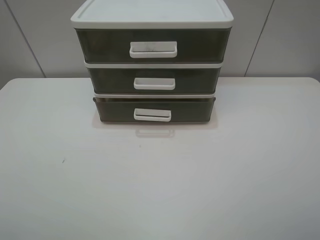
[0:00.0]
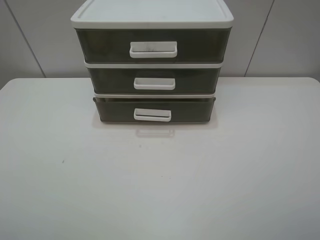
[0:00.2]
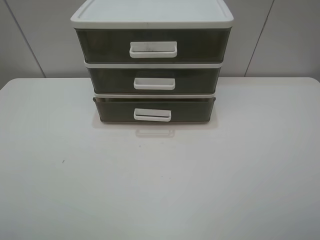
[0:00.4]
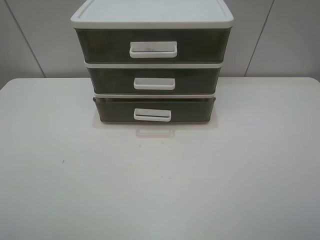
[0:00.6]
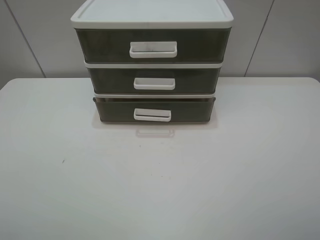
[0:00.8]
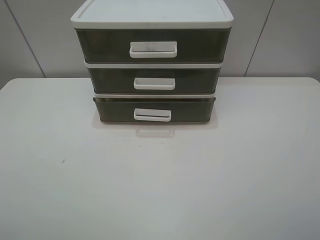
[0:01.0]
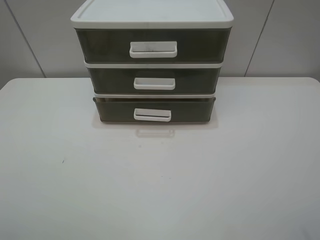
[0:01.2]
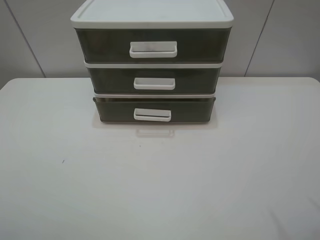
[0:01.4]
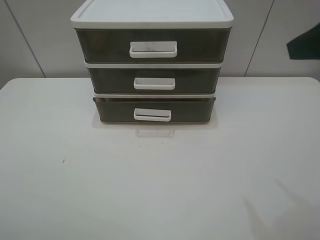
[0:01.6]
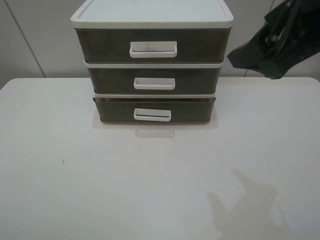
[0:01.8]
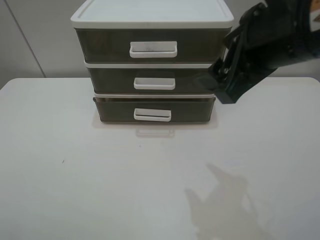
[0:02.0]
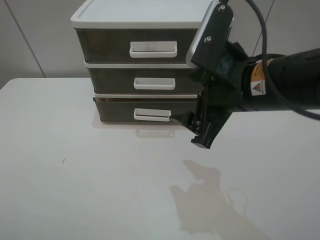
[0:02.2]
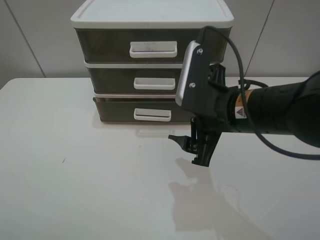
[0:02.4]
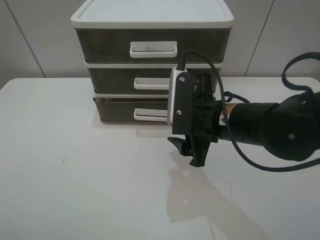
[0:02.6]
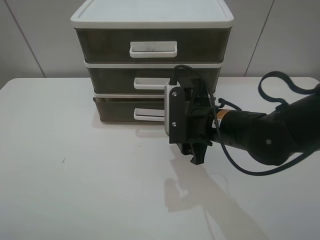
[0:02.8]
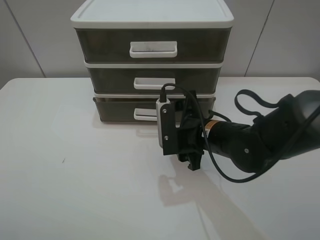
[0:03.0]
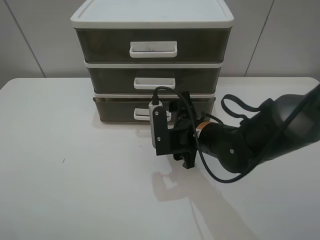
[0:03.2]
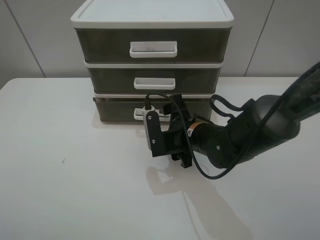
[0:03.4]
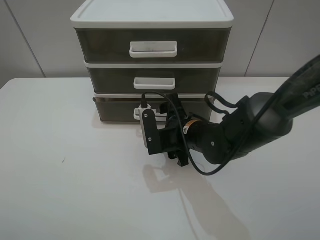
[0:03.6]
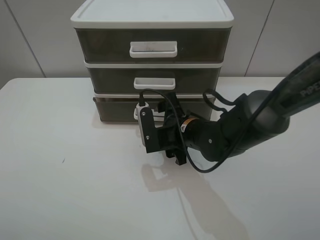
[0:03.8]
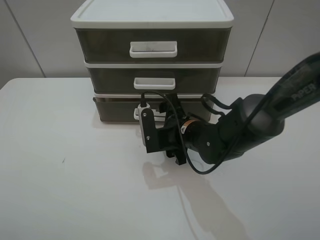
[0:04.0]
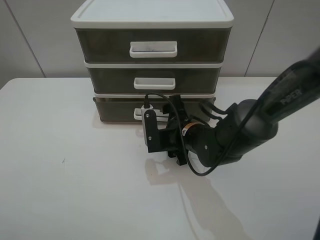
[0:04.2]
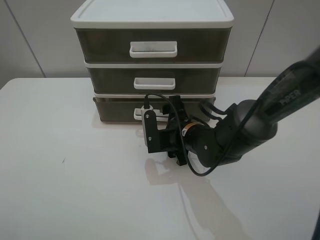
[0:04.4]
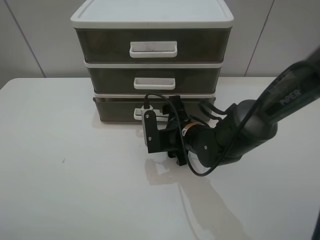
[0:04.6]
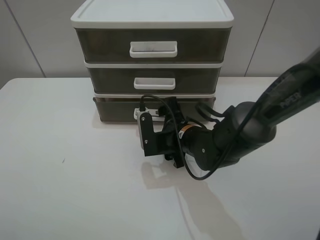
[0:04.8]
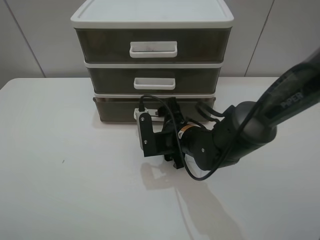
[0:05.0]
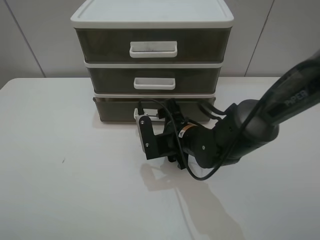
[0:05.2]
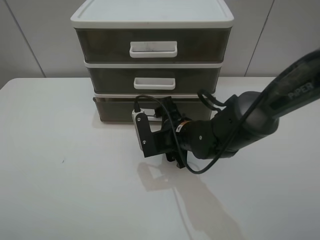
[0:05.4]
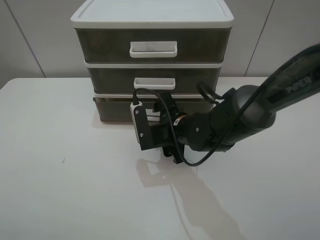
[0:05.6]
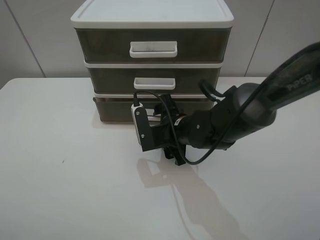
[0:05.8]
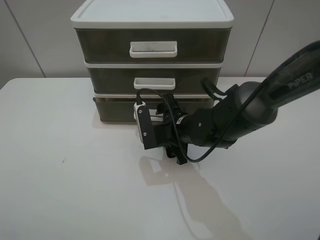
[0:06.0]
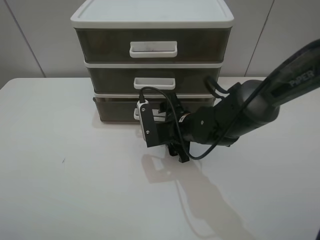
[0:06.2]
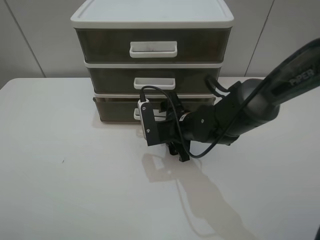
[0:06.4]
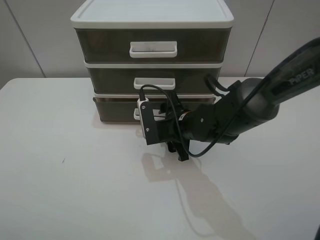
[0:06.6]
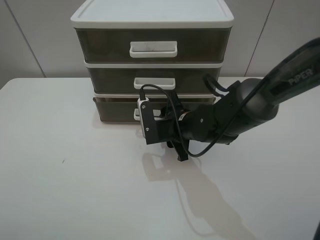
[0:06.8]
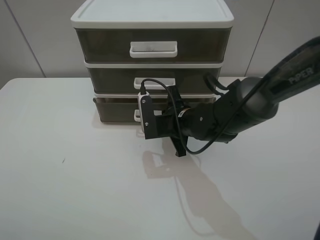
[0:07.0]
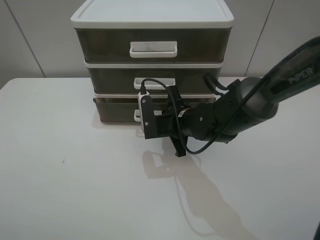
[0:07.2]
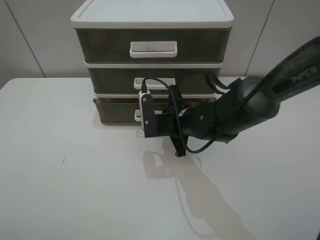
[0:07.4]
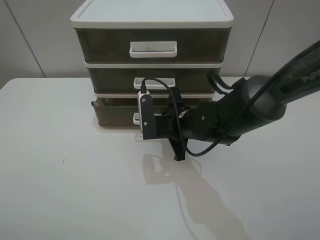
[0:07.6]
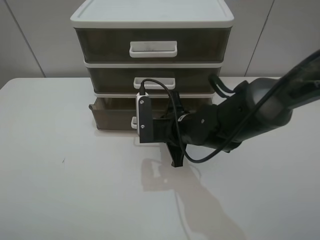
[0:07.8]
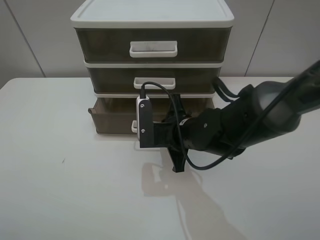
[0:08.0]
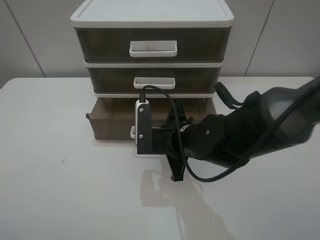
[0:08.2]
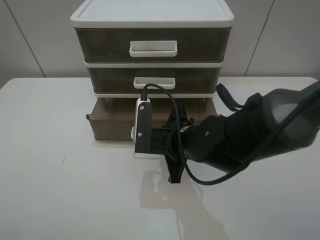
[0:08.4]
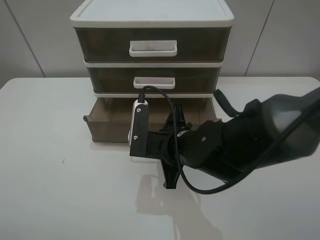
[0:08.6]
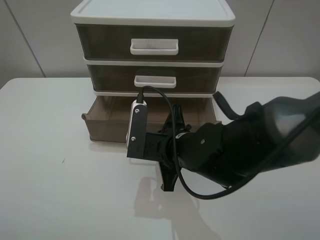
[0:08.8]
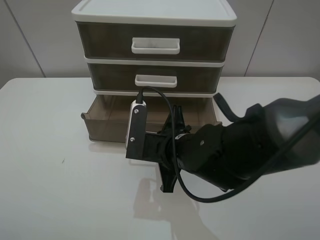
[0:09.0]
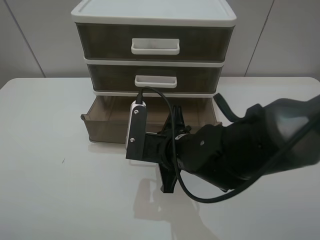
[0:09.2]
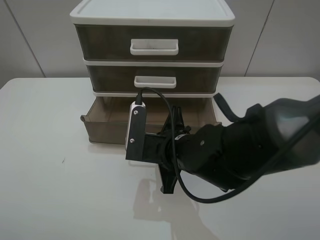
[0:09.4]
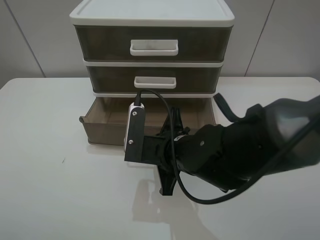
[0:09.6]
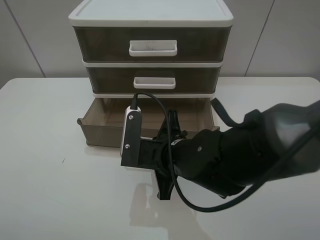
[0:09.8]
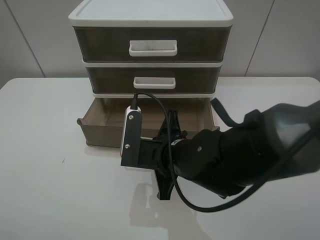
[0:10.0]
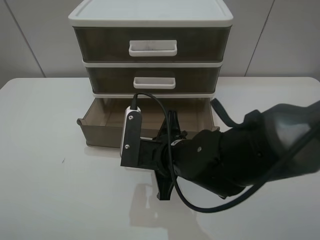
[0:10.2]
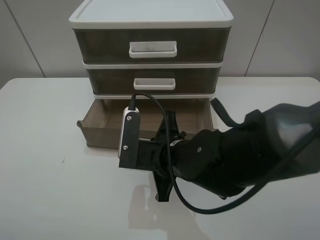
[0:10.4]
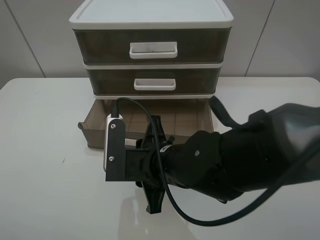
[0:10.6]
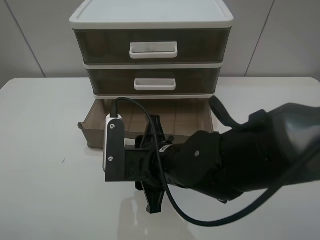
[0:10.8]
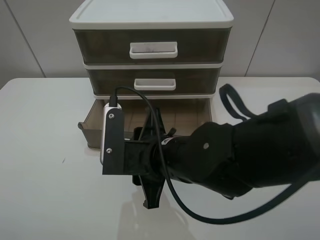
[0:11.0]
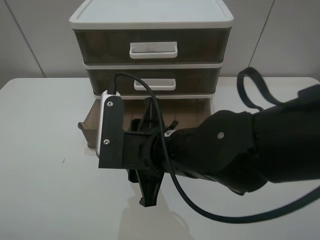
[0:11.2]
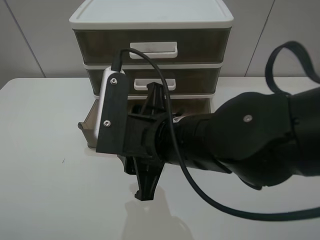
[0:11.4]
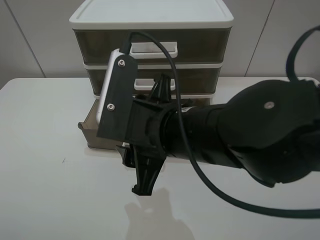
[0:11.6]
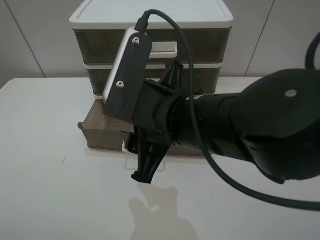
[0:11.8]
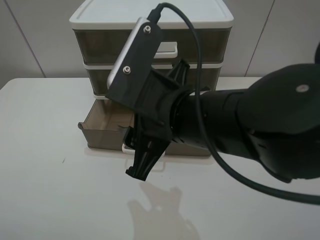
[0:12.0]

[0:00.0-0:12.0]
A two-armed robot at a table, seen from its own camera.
Task of the whole recording: open the bottom drawer.
Step, 0:00.0 to 0:07.4: Grab the bottom drawer with the right gripper.
Step, 0:07.6 to 0:11.0: Pull open the drawer with the right gripper.
0:00.0 to 0:01.6: The right gripper shifts about 20 cm forward and upward.
0:01.6 to 0:03.0: The right gripper shifts approximately 30 cm downward and to the left.
0:03.0 to 0:04.4: The right gripper shifts by about 5 cm.
0:04.4 to 0:06.0: The grippers make only small movements.
0:06.0 to 0:07.6: The right gripper closes its fingers.
0:07.6 to 0:09.0: The right gripper heads backward, covering approximately 10 cm.
0:09.0 to 0:10.4: The grippers make only small movements.
0:10.4 to 0:12.0: The right gripper travels upward by approximately 10 cm, and opens its fingers.

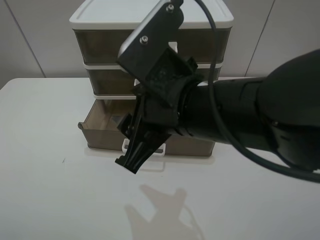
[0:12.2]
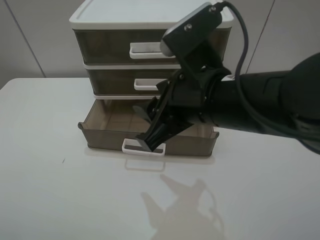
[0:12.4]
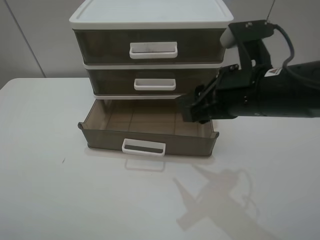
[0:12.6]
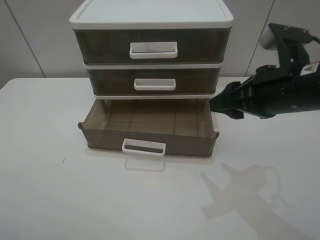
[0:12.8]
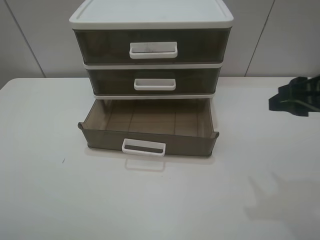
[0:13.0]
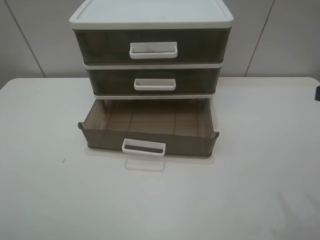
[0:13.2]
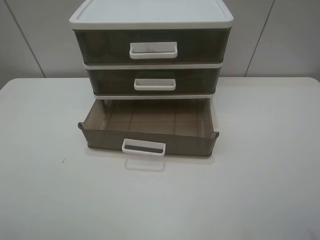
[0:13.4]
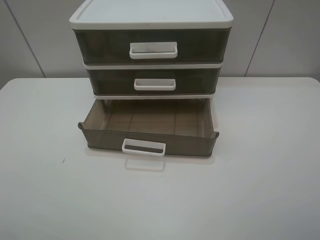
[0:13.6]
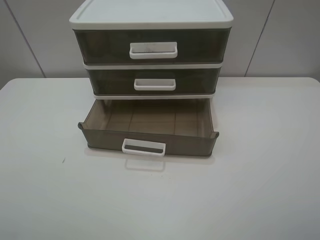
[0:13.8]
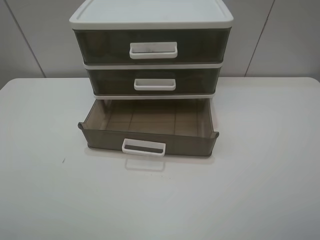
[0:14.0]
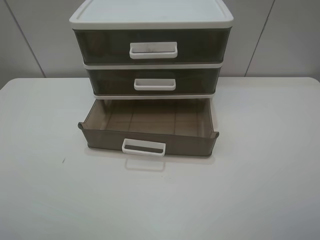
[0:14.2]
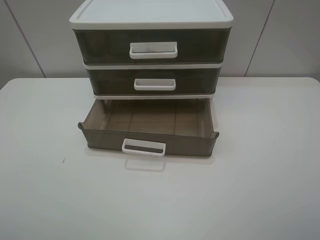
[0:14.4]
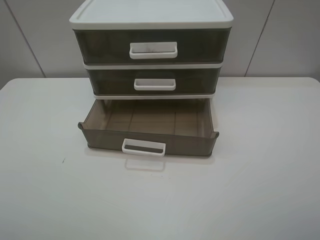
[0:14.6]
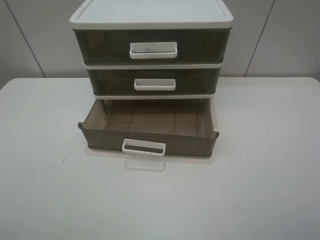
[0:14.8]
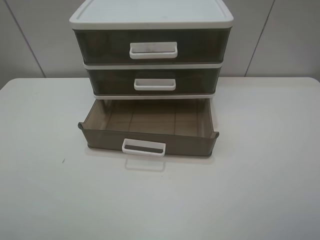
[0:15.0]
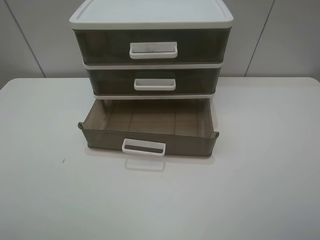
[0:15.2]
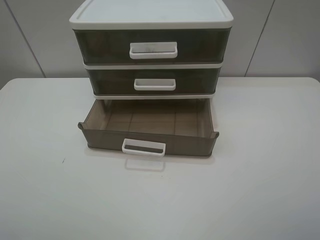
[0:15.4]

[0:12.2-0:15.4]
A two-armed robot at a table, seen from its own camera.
Task of the whole recording: open the bottom drawer.
0:12.2 to 0:13.8: The right gripper moves to the right and backward, about 30 cm.

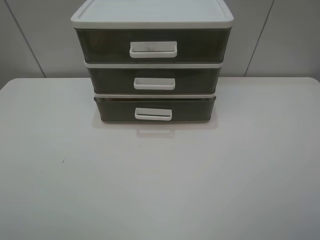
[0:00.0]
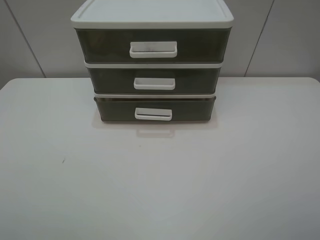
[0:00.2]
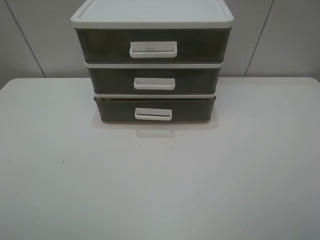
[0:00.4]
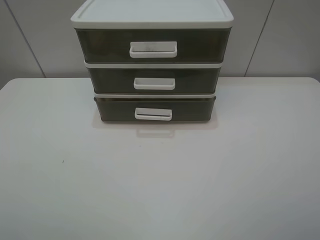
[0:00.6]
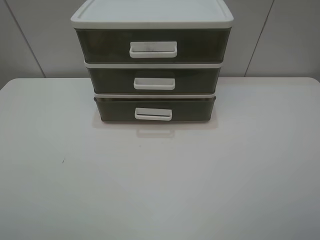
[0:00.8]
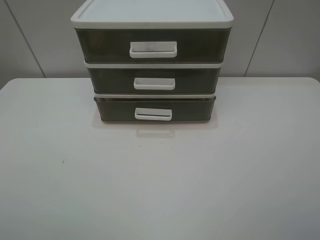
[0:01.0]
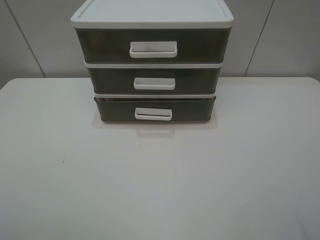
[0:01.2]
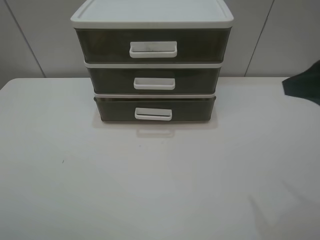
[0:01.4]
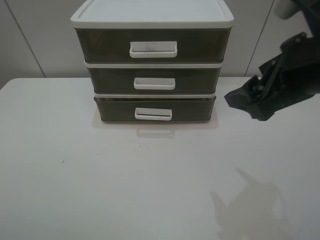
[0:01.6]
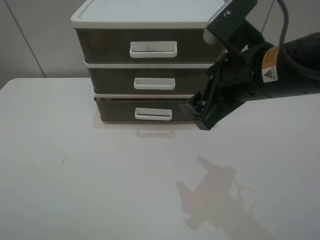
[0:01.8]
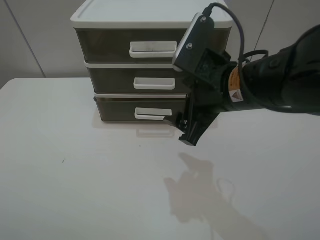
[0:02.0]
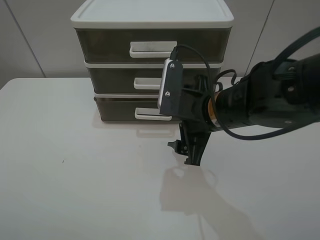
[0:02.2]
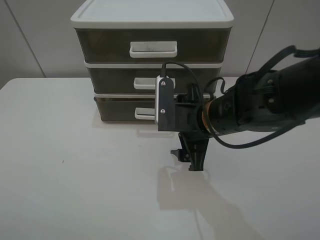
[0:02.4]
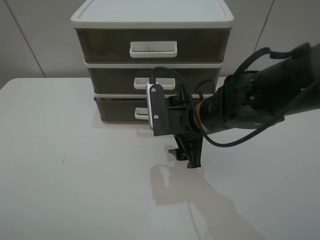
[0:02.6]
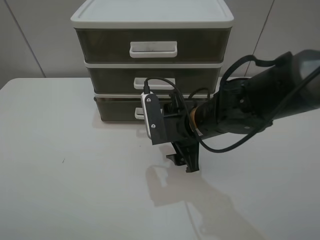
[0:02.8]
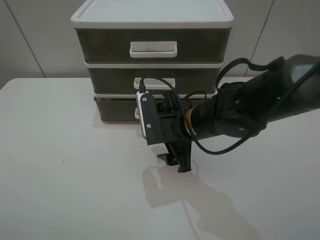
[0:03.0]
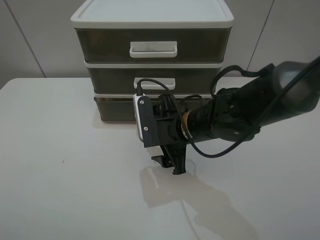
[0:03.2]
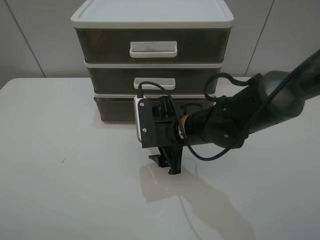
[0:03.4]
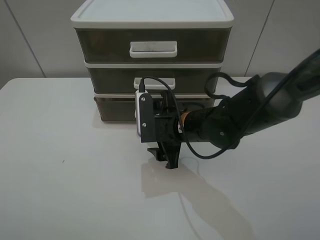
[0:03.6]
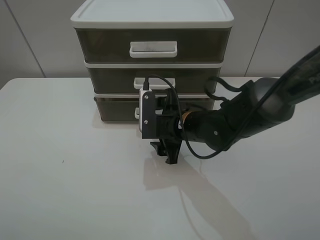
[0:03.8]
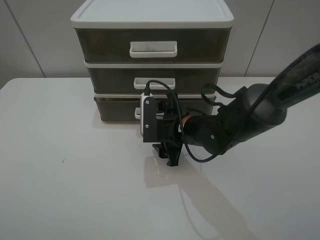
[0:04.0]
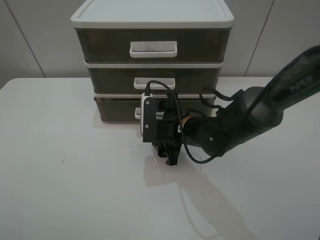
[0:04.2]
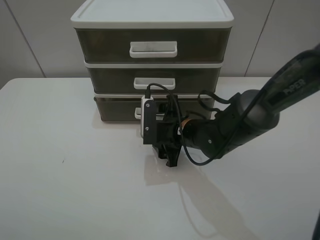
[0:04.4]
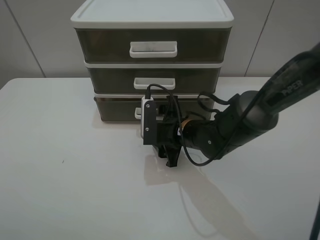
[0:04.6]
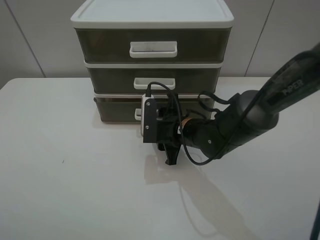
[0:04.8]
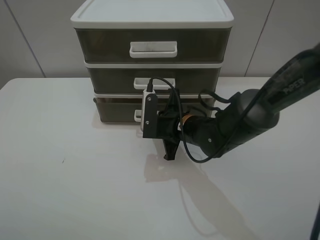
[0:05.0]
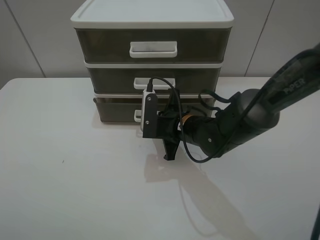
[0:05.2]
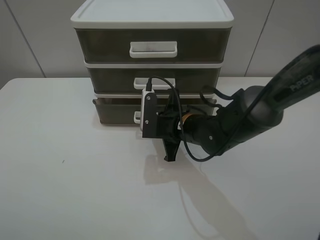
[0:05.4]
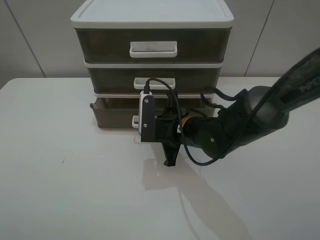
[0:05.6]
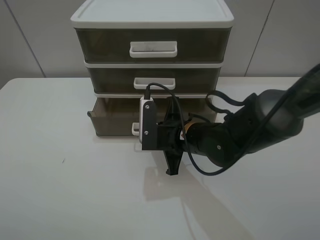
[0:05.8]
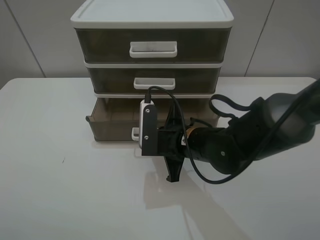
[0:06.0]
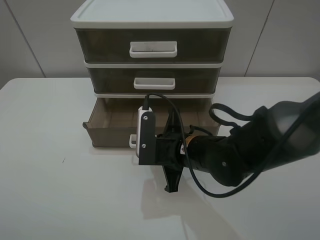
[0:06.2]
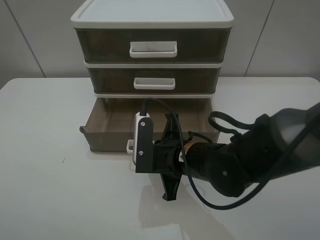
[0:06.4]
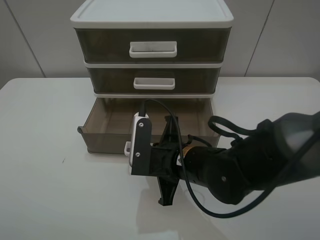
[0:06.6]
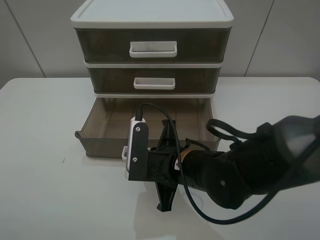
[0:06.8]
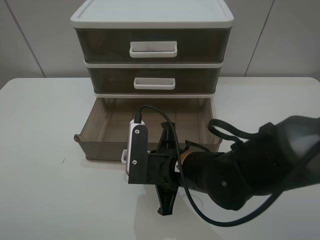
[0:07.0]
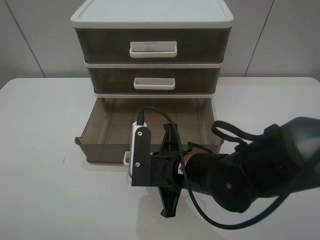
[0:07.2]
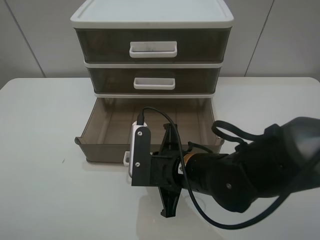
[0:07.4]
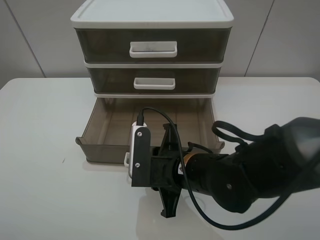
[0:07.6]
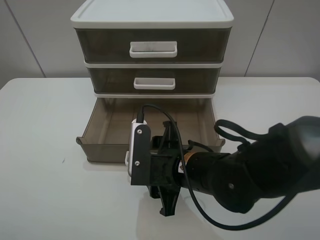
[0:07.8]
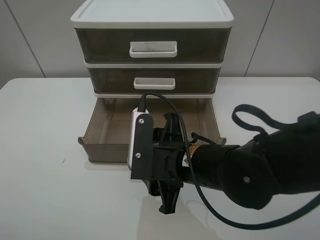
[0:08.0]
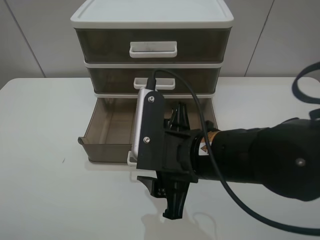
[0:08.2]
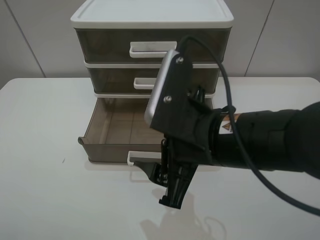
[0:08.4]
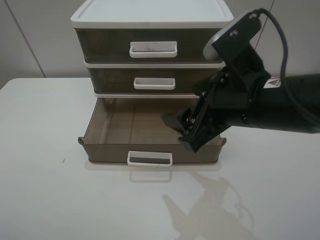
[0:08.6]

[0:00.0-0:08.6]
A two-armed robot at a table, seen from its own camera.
Task of the whole recording: open the bottom drawer.
Step, 0:00.0 to 0:04.8: Grab the bottom drawer with the right gripper.
Step, 0:05.0 to 0:08.0: Pull open the drawer with the right gripper.
0:00.0 to 0:01.4: The right gripper goes roughly 15 cm forward.
0:01.4 to 0:02.8: The right gripper heads downward, to the left and forward, covering roughly 25 cm.
0:02.8 to 0:04.4: The right gripper heads downward, covering about 5 cm.
0:04.4 to 0:05.8: The right gripper closes.
0:05.8 to 0:07.2: The right gripper heads backward, covering about 5 cm.
0:07.2 to 0:08.6: The right gripper shifts about 15 cm upward and to the right, and opens its fingers.
